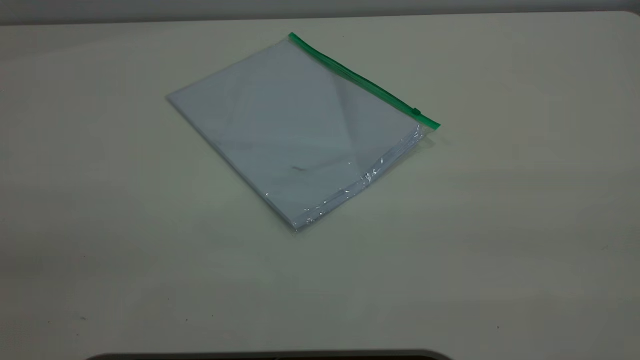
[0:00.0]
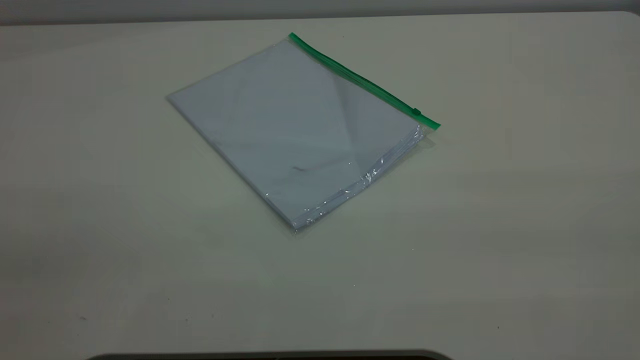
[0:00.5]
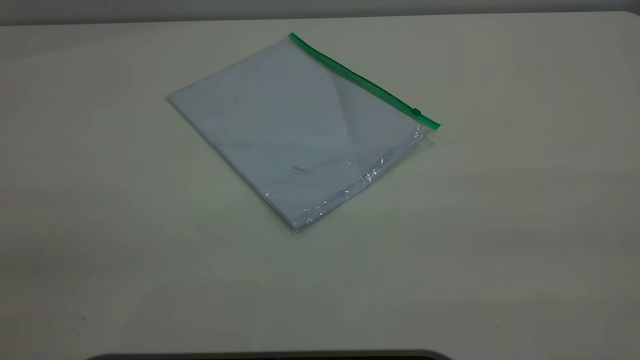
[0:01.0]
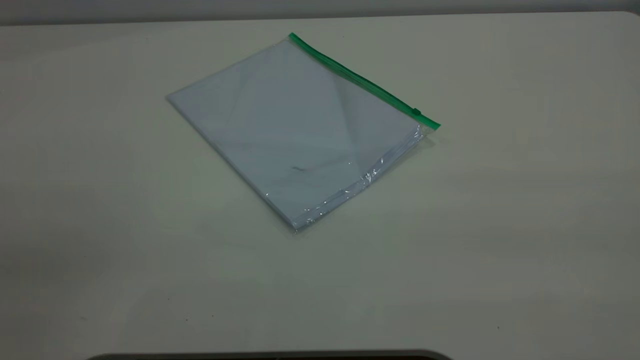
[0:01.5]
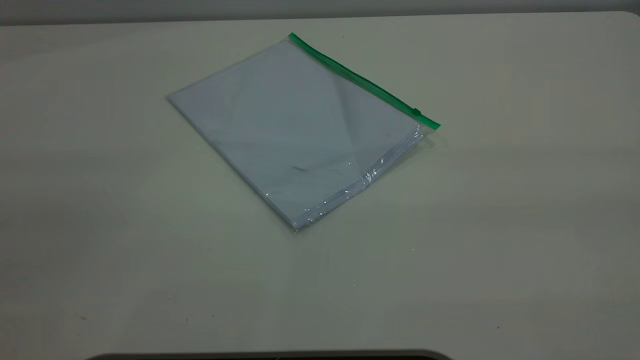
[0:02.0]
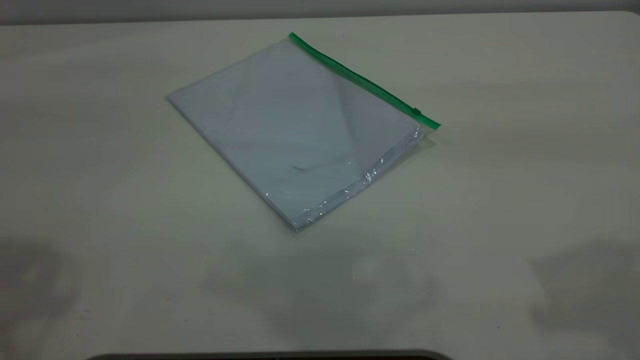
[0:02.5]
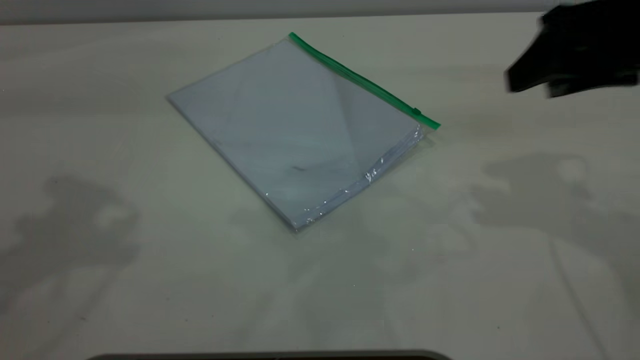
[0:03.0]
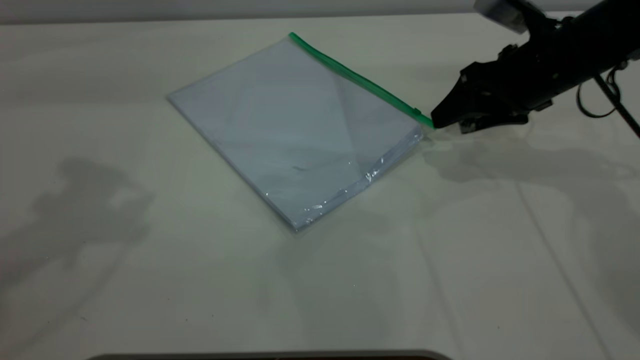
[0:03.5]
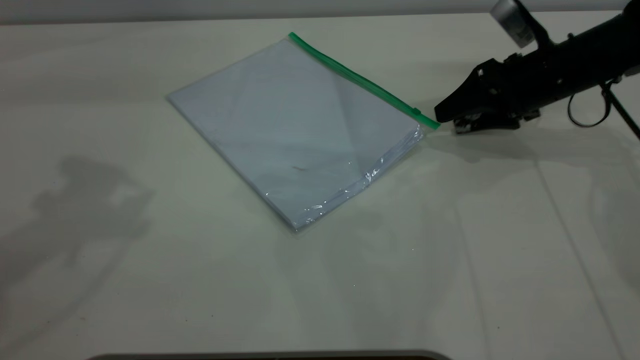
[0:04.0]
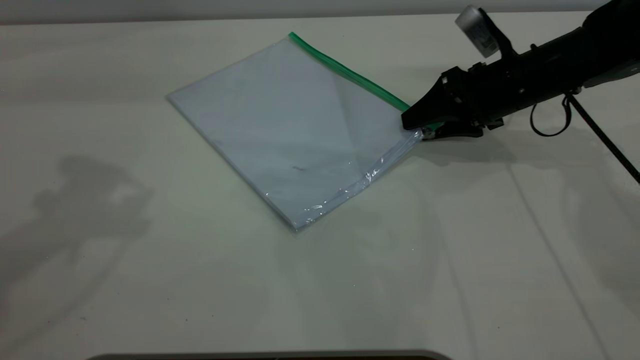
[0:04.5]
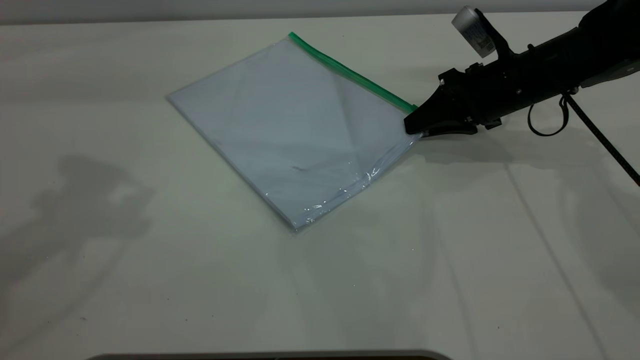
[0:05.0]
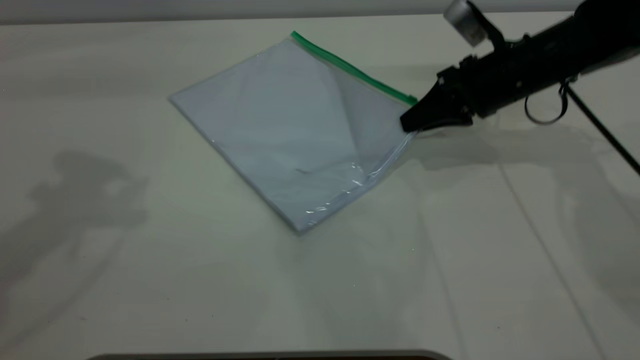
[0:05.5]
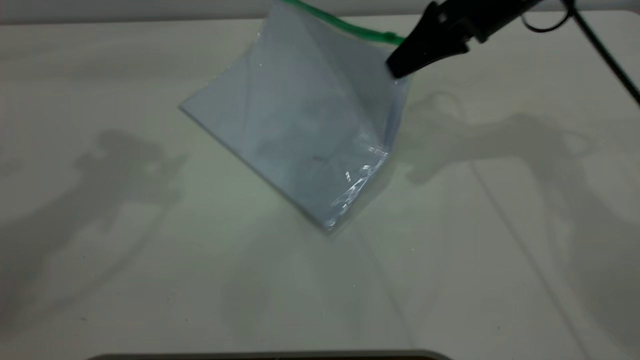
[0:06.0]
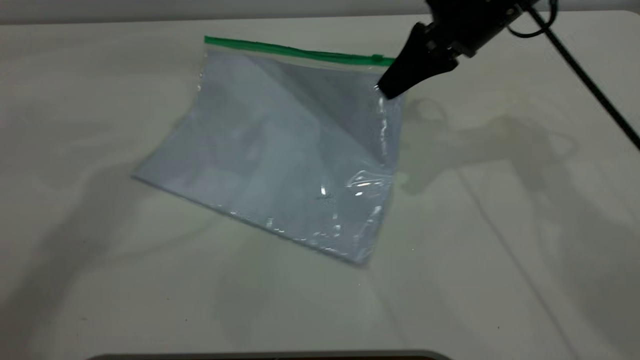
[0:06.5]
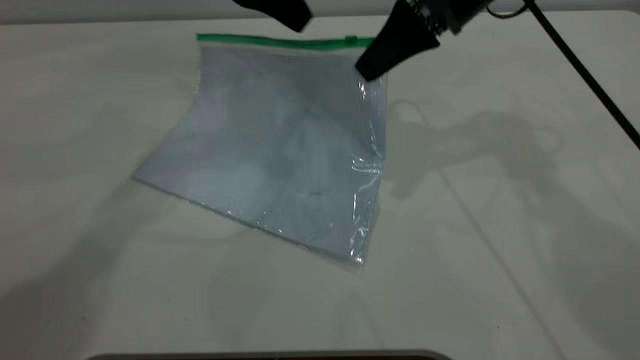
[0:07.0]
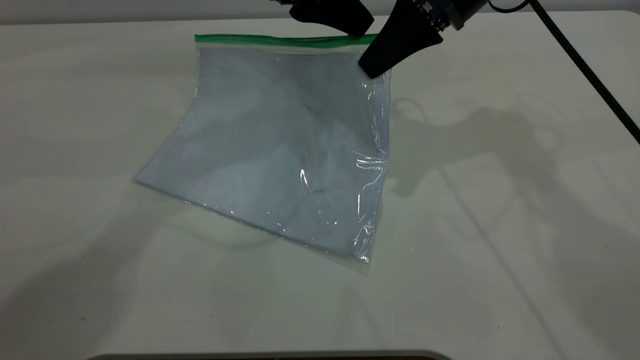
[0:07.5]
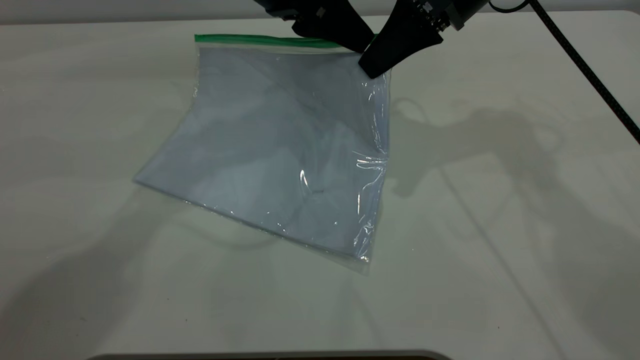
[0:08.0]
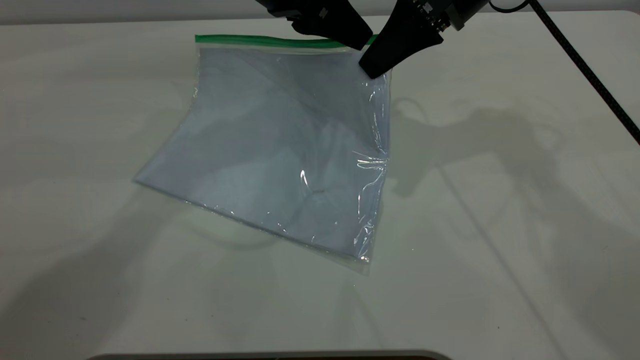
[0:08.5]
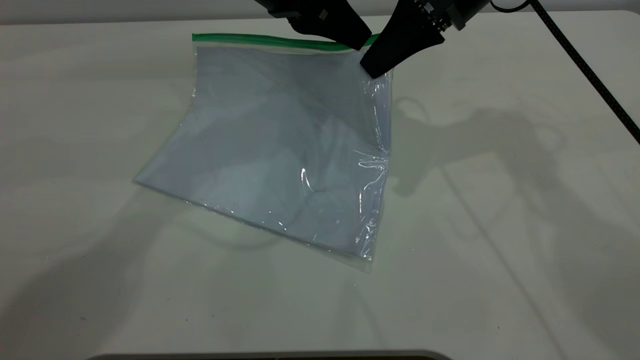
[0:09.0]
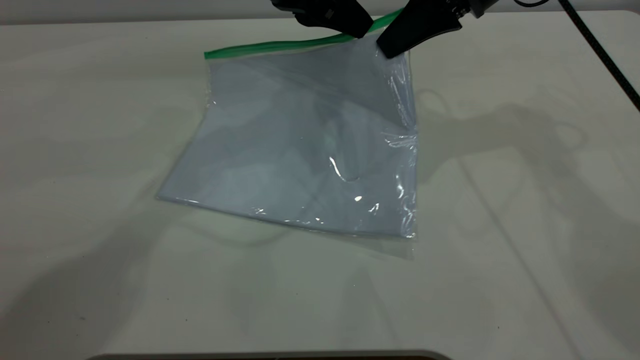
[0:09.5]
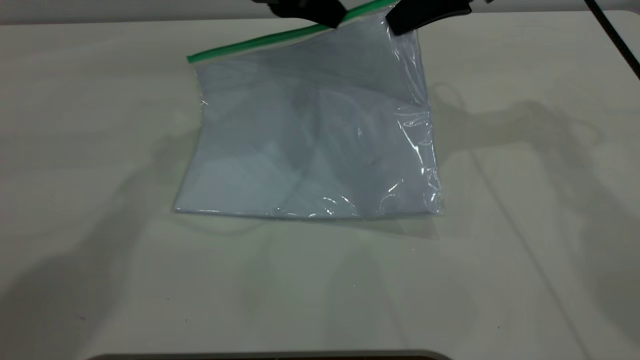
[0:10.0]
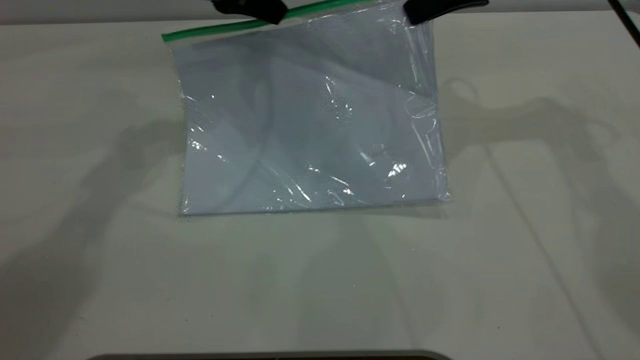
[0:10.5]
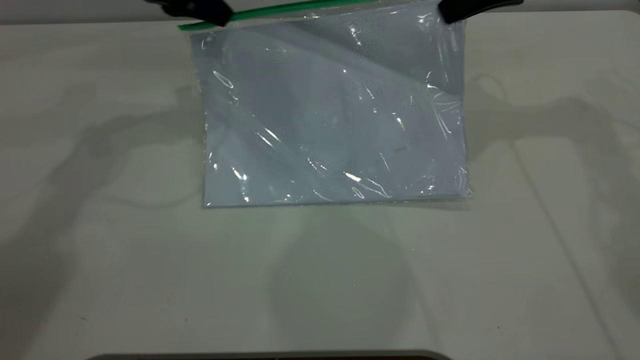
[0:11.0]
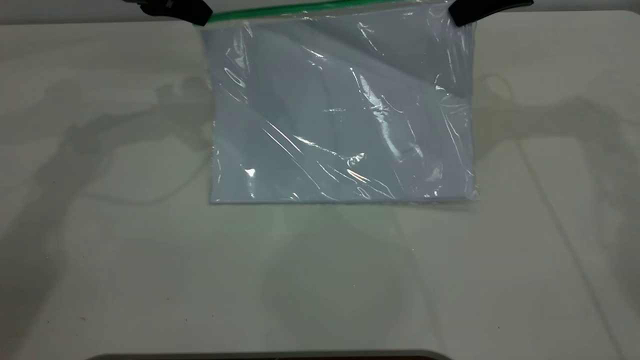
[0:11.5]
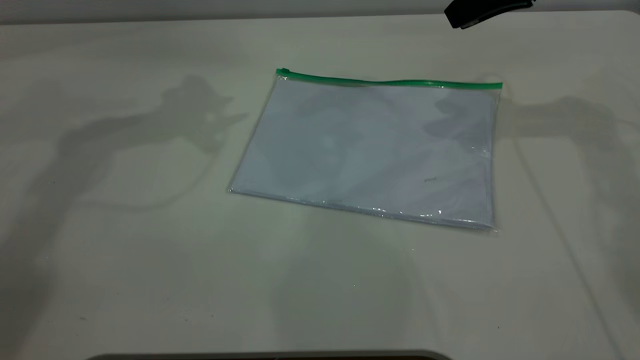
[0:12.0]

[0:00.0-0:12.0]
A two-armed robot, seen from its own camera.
Step, 0:00.0 to 0:06.5: Pick up the transparent plastic bag with the right gripper.
Step, 0:07.0 to 0:11.0: Pulling up the zipper on the transparent plastic bag with the left gripper to close it.
0:02.0 to 0:04.0: The right gripper shifts about 50 cm forward and downward.
0:04.0 to 0:06.0: The left gripper changes place by about 5 cm; the right gripper shifts roughly 15 cm upward and to the left, and closes its fingers.
0:06.0 to 0:08.0: The left gripper moves to the right and downward, about 20 cm.
0:08.0 to 0:10.0: The left gripper closes its fingers; the right gripper changes place by approximately 5 cm.
0:10.0 to 0:12.0: The left gripper shifts roughly 10 cm to the left and upward, and opens up. Meanwhile the right gripper moves to the right, some 5 cm, and opens its fingers.

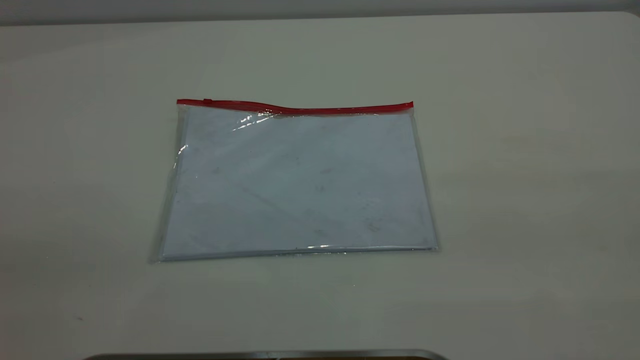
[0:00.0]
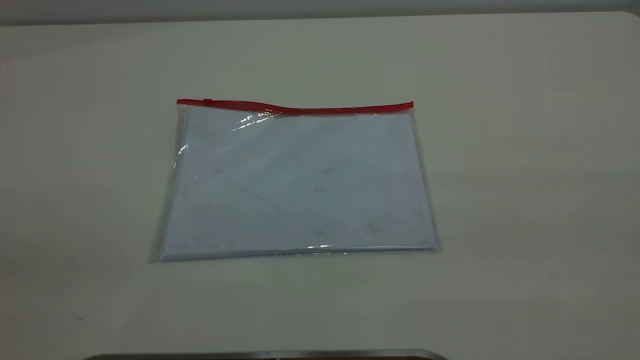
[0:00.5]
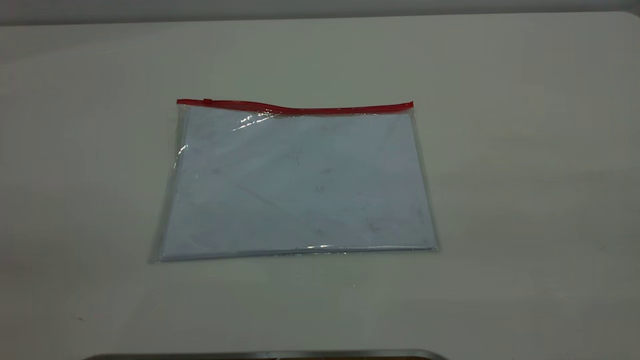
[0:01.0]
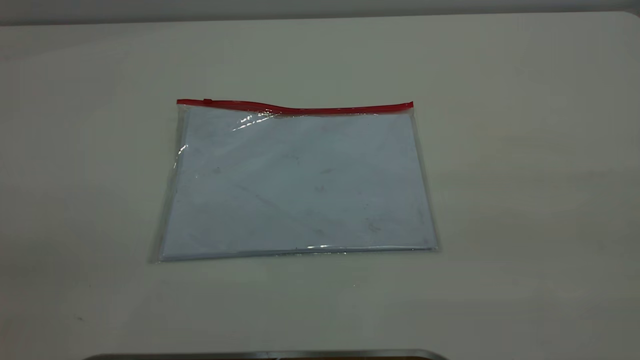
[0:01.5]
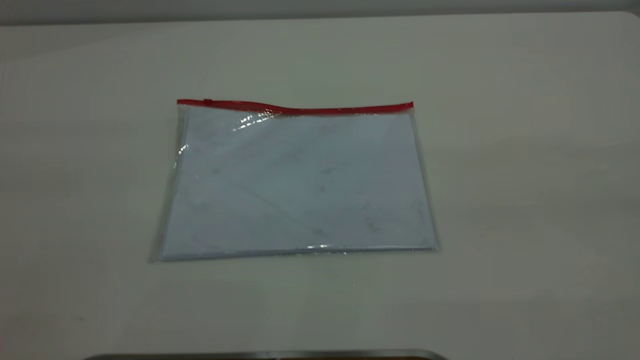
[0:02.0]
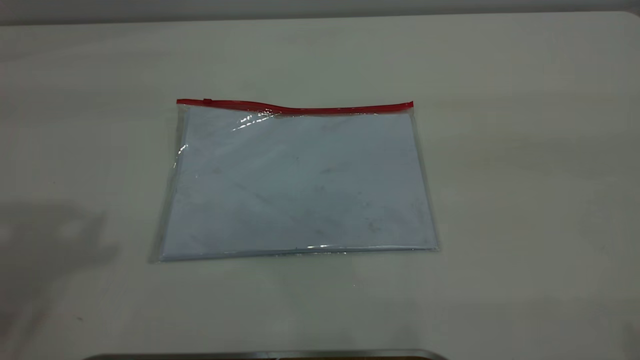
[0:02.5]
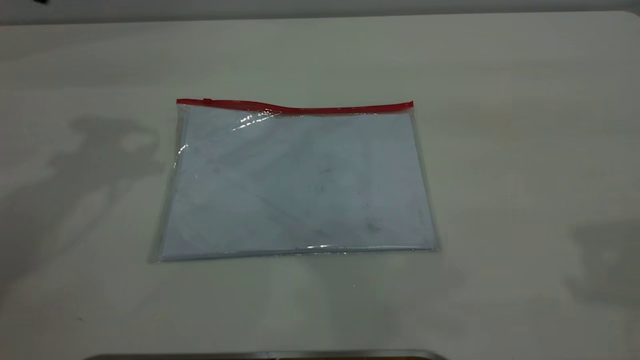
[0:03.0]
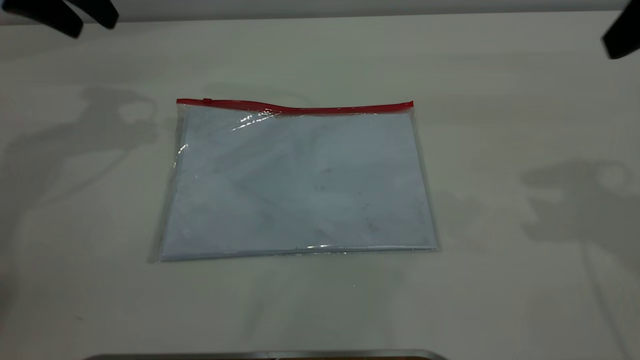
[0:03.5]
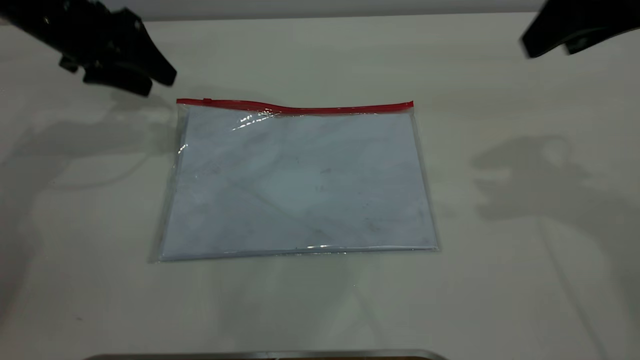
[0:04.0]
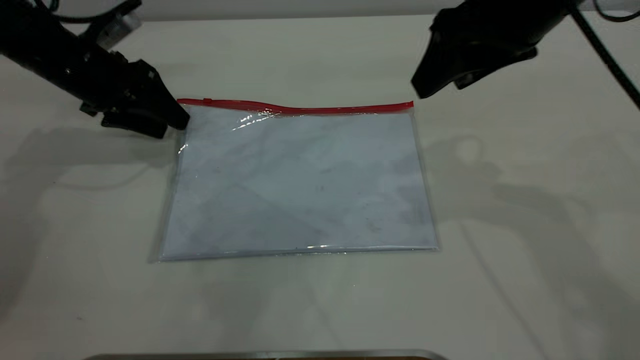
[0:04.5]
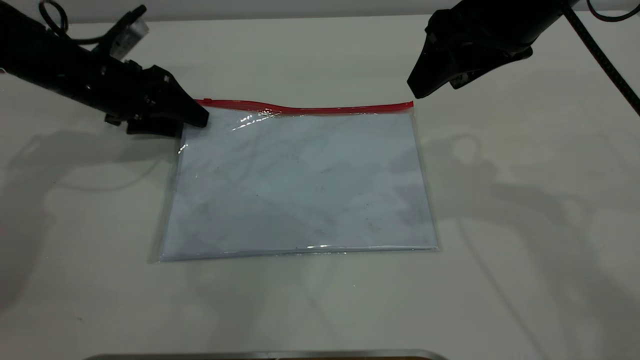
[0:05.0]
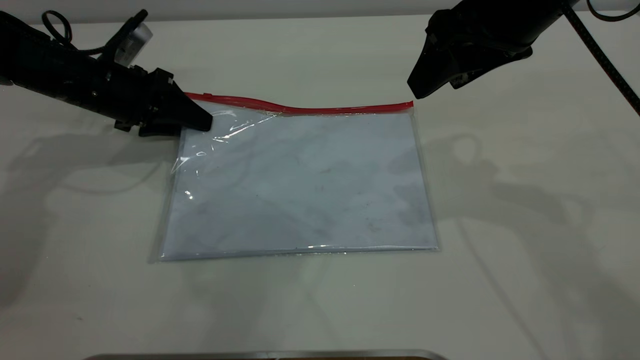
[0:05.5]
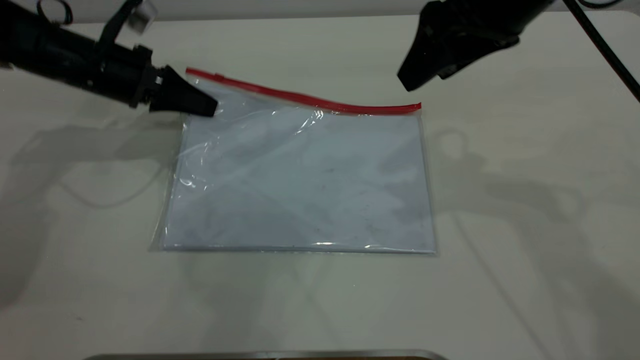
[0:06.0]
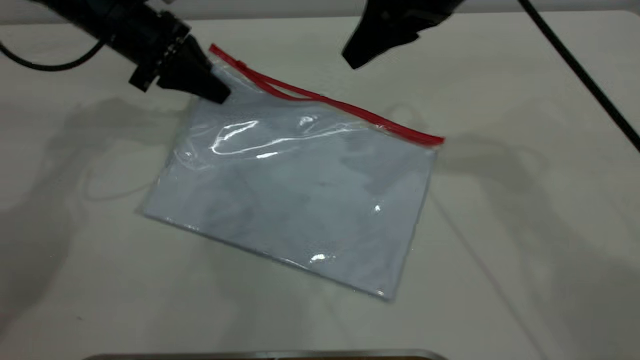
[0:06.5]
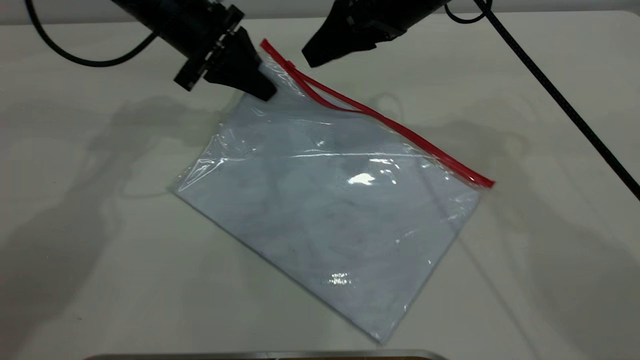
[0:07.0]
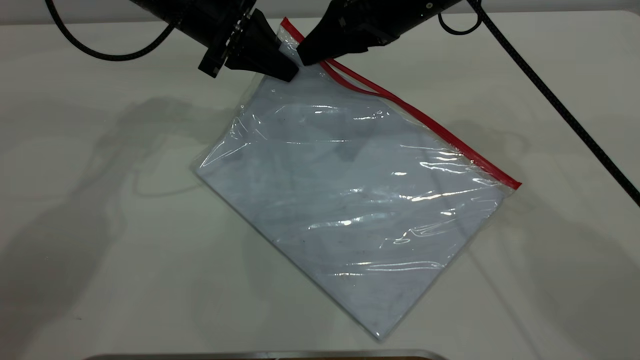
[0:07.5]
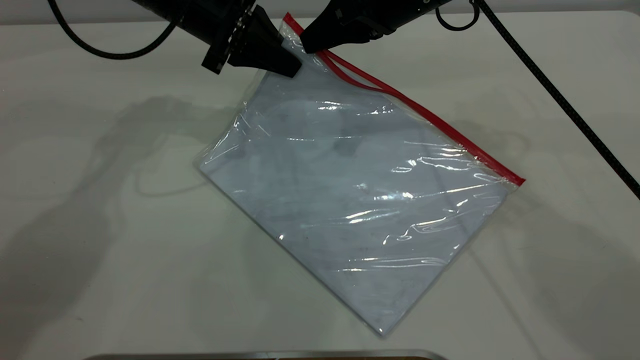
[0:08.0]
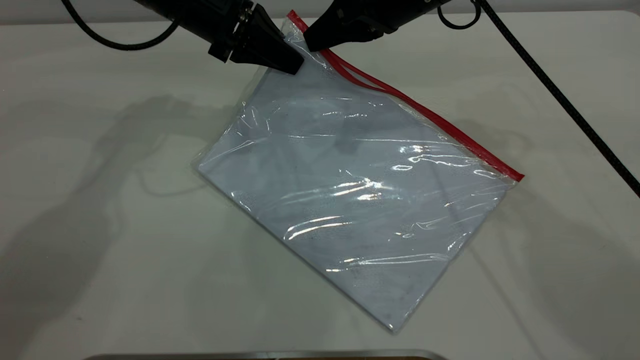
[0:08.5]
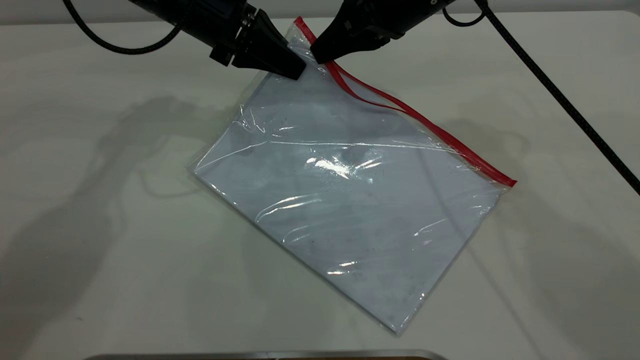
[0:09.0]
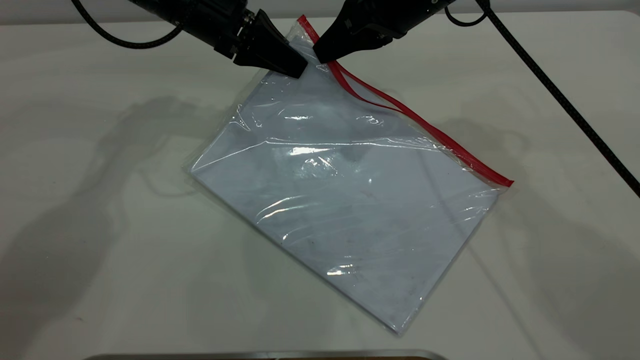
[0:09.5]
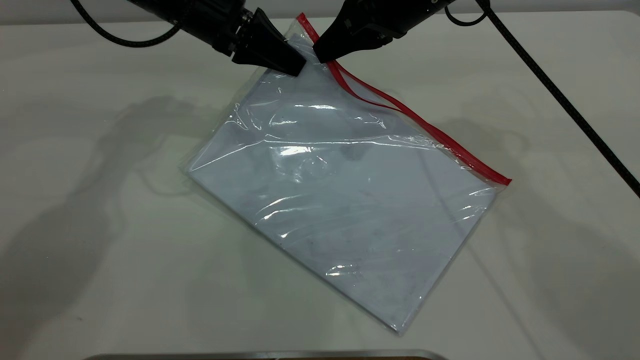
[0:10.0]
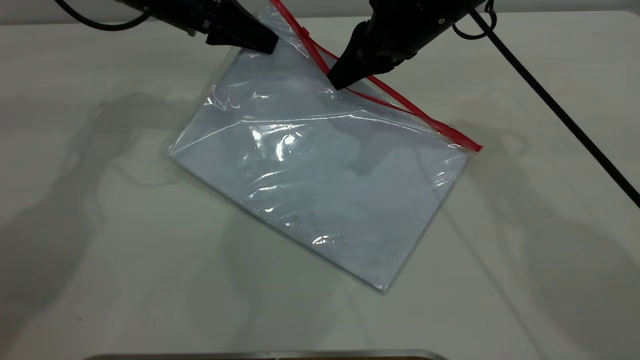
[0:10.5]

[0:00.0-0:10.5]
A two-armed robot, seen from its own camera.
Step, 0:00.0 to 0:06.0: Pick up the transparent plastic bag with the left gripper.
0:02.0 to 0:04.0: Both grippers travel together forward and downward, roughly 40 cm.
0:04.0 to 0:06.5: The left gripper heads to the right, covering approximately 5 cm, moves roughly 10 cm downward and comes back, and closes. Meanwhile the right gripper moves to the left and forward, some 15 cm.
0:06.5 to 0:08.5: The right gripper ends up approximately 5 cm from where it was, and closes up, while the left gripper shifts some 5 cm to the right.
0:08.5 to 0:10.5: There are only small adjustments of the grippers.
